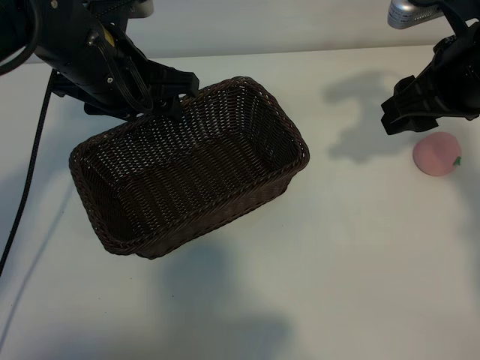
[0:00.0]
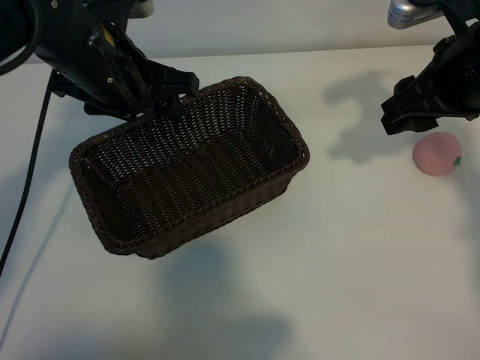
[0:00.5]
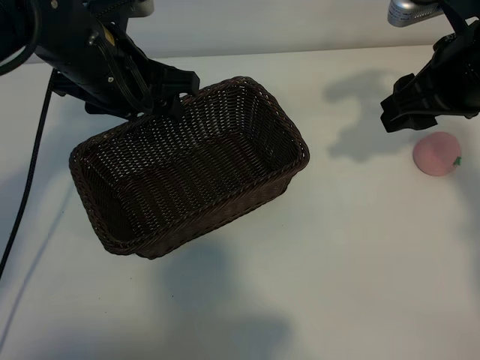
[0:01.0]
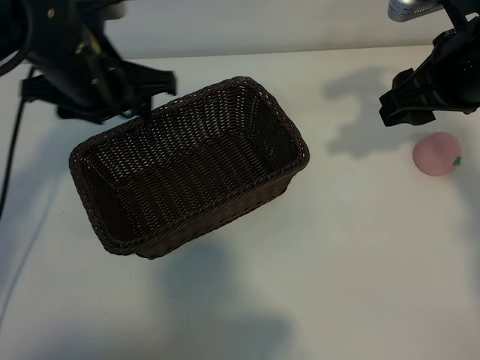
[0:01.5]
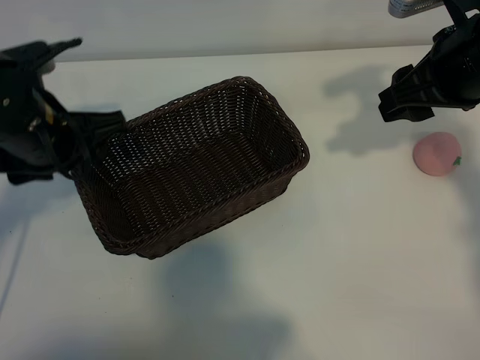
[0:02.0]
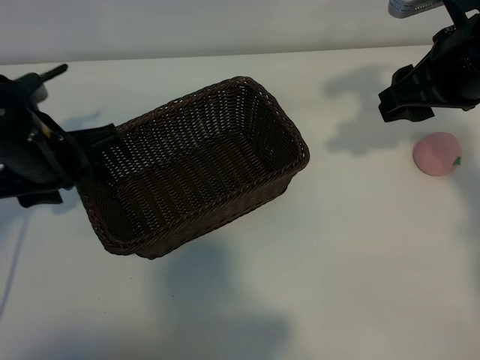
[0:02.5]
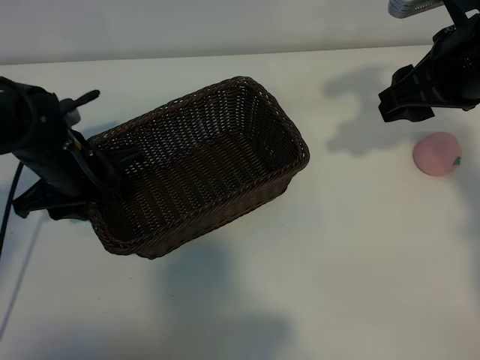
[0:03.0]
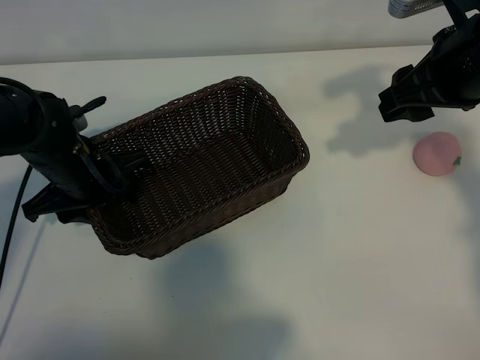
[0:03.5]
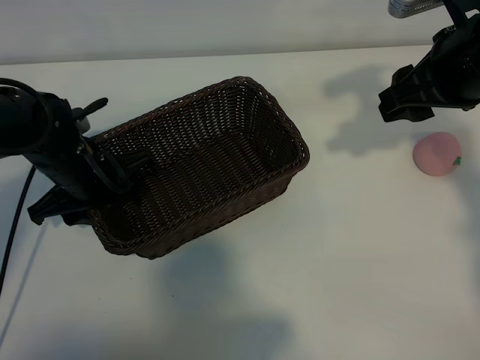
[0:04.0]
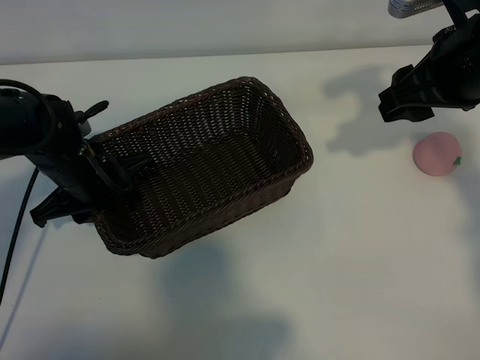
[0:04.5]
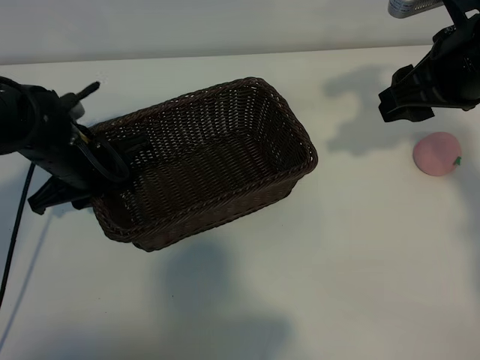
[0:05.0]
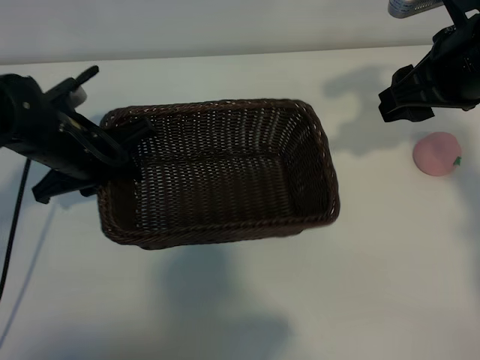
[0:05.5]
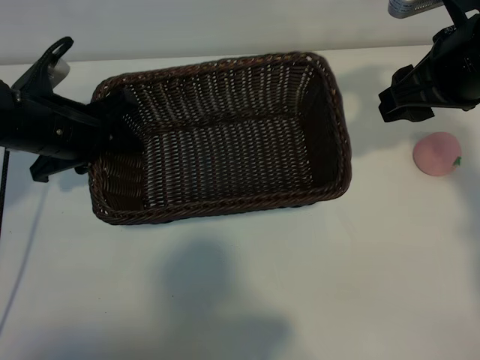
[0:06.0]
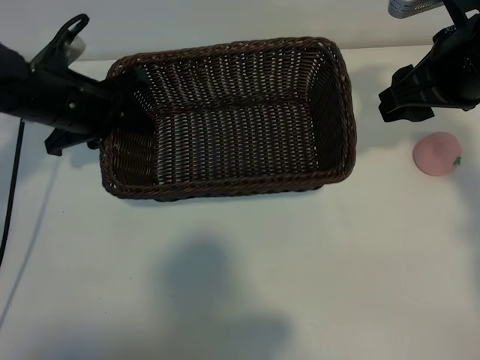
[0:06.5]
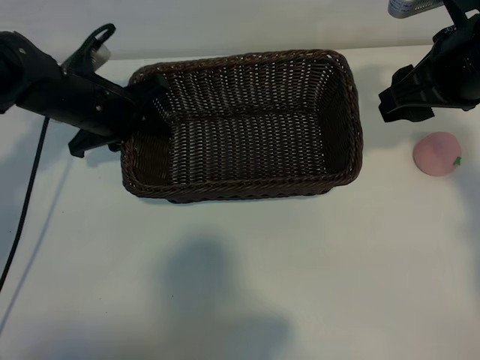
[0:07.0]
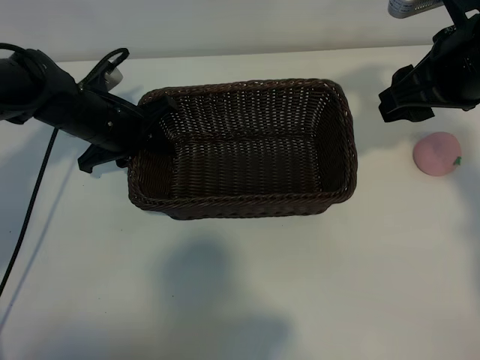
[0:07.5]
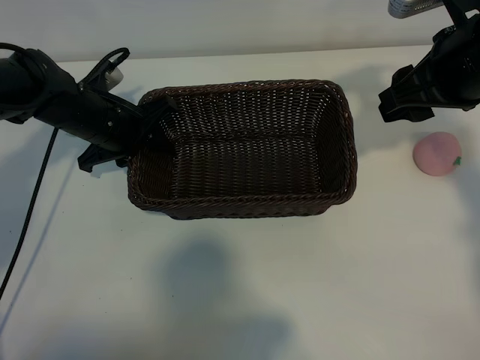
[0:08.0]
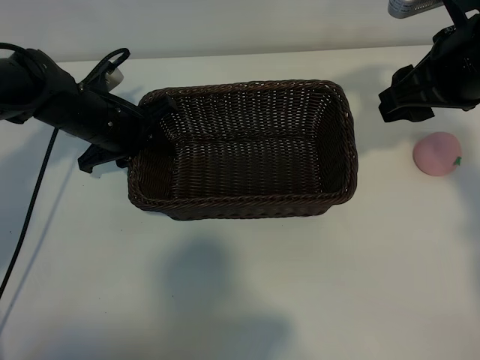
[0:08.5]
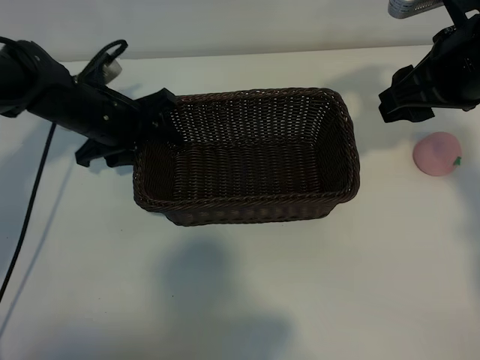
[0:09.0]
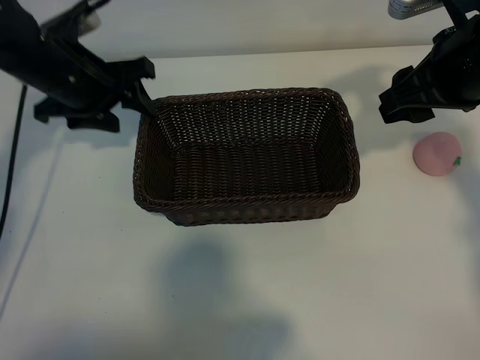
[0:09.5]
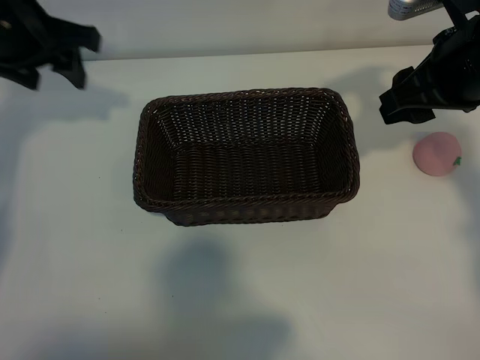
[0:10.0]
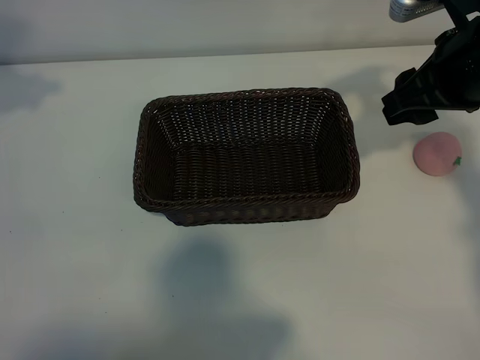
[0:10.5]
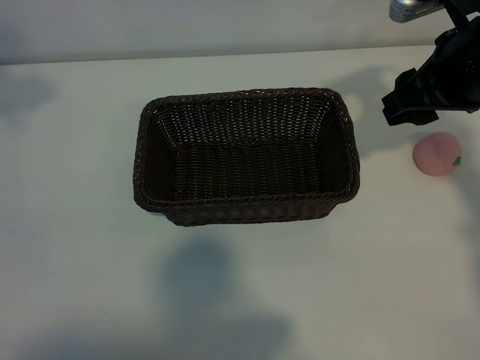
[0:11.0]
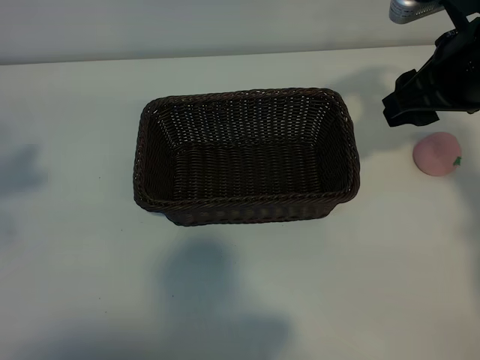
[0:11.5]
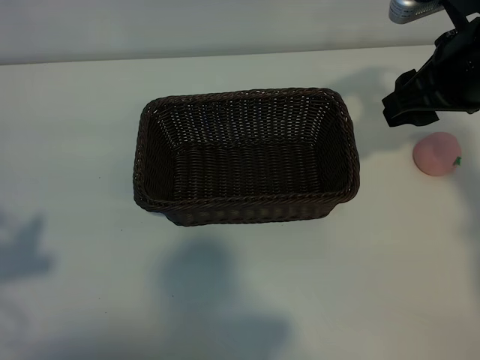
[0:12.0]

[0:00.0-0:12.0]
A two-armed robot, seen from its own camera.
Task of the whole recording: pick up the peach and put it into the basket.
Step, 0:01.0 to 0:04.5: Grasp the basket with left gripper.
Step, 0:05.0 to 0:09.0: Place the basket in the center of view with left gripper.

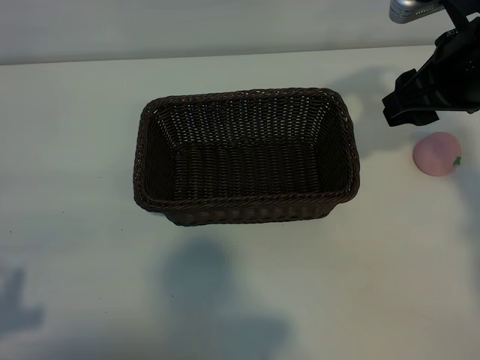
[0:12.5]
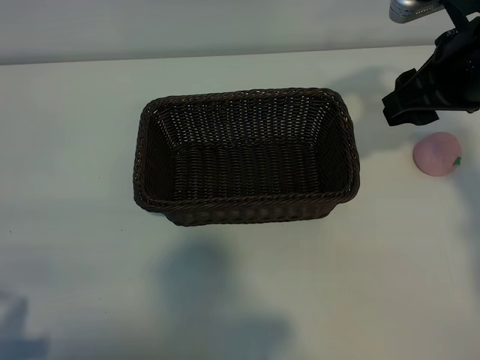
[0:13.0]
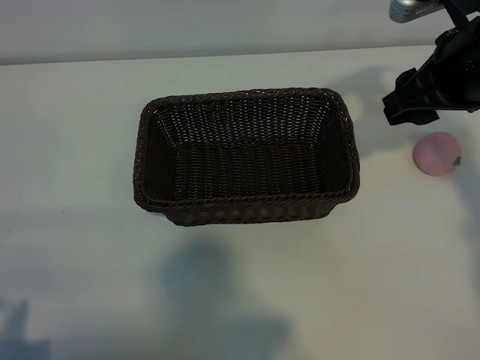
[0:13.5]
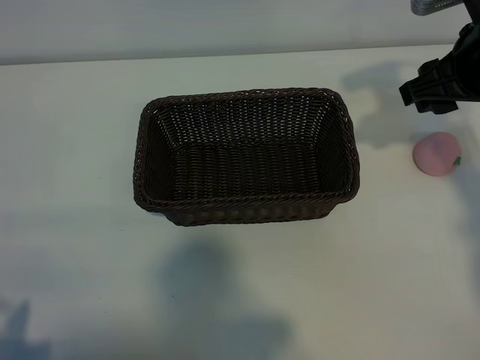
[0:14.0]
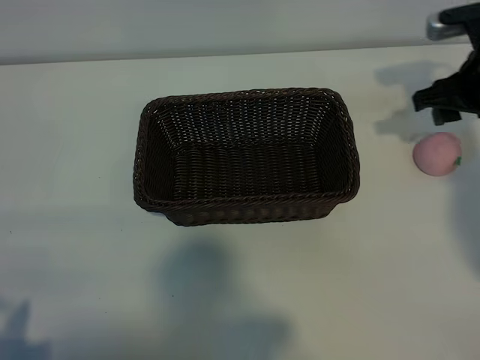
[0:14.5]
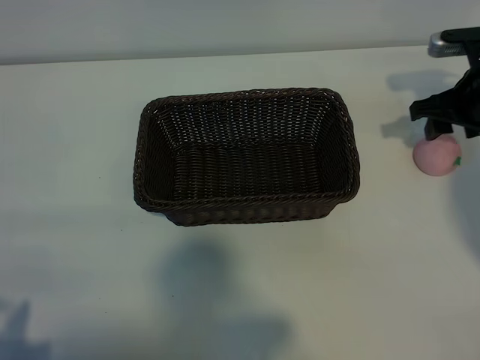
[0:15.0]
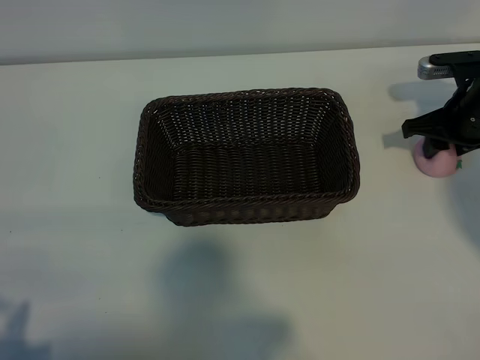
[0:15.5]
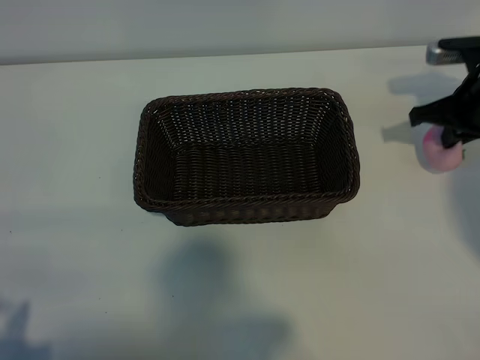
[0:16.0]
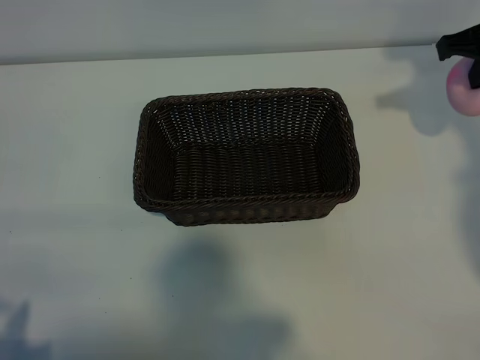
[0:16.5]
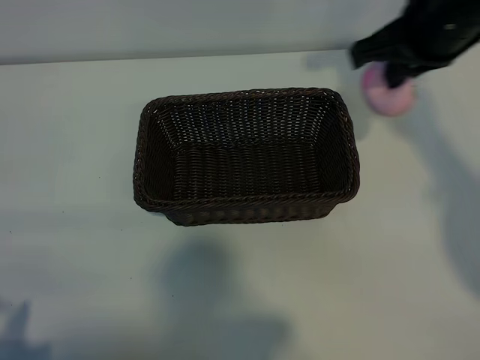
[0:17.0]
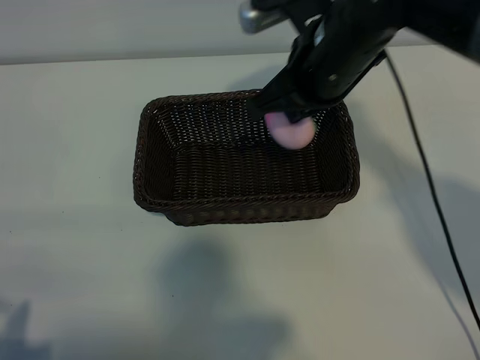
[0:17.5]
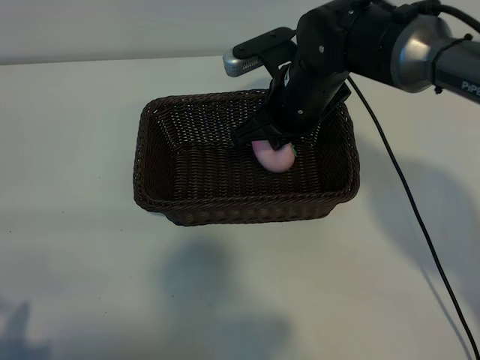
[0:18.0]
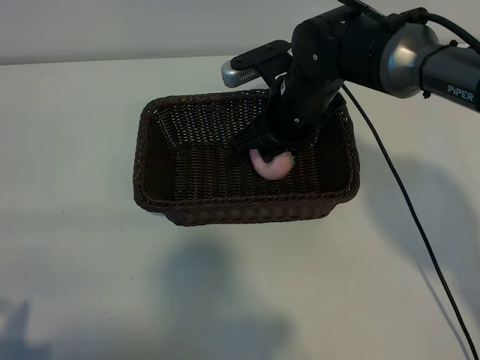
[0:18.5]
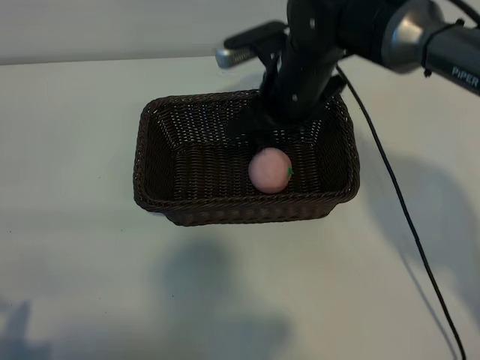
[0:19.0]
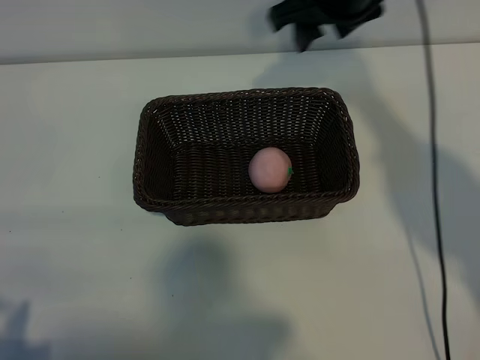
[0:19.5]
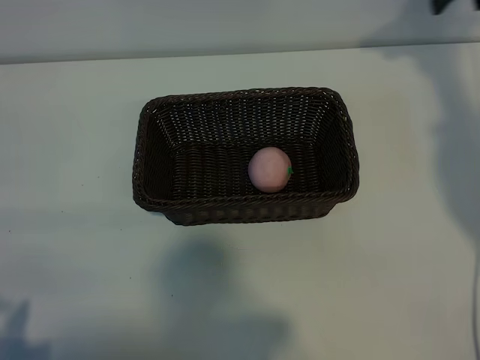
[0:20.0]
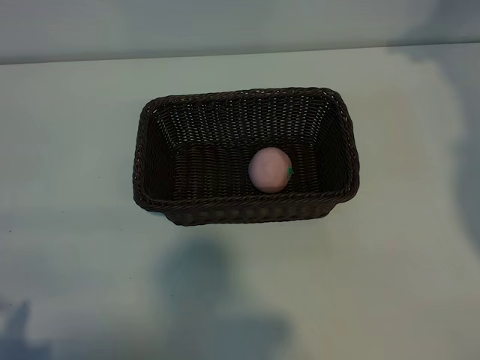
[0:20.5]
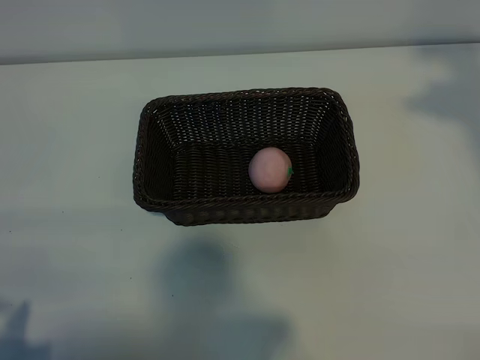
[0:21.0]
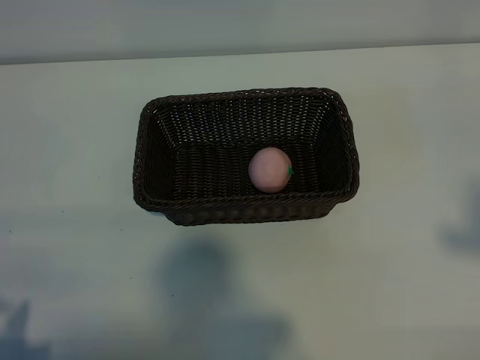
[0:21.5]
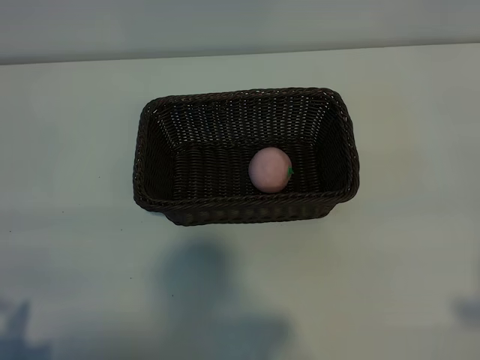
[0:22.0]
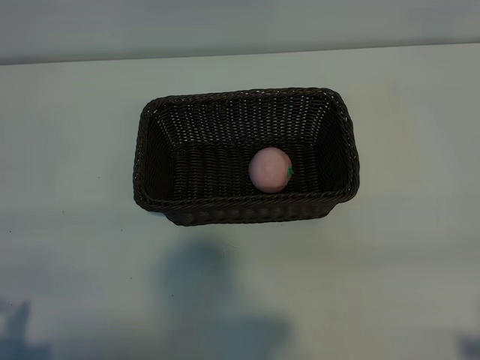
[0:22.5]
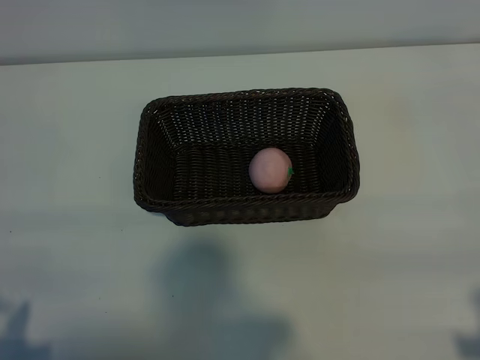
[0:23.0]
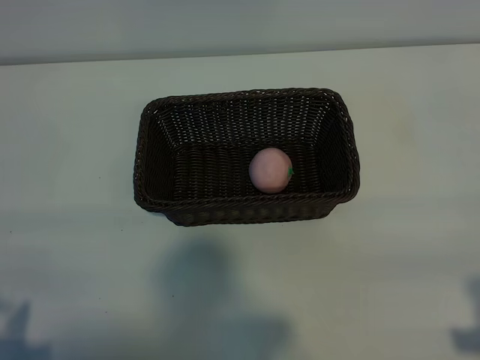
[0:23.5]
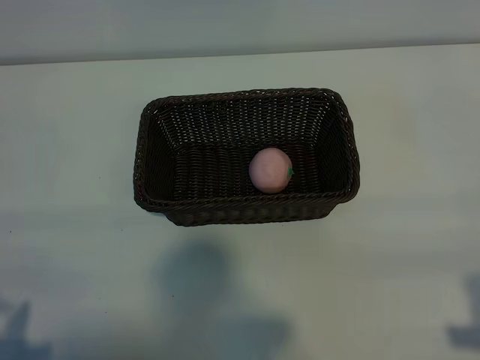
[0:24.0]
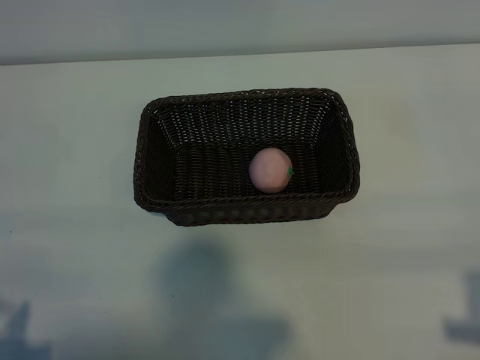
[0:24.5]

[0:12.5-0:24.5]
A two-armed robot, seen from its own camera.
Task of the whole recording: pick up the peach and put it into the basket.
Step, 0:12.5 to 0:15.5: Grasp the peach with right gripper.
Step, 0:16.0 to 0:19.0: Place the peach in the basket with right gripper.
